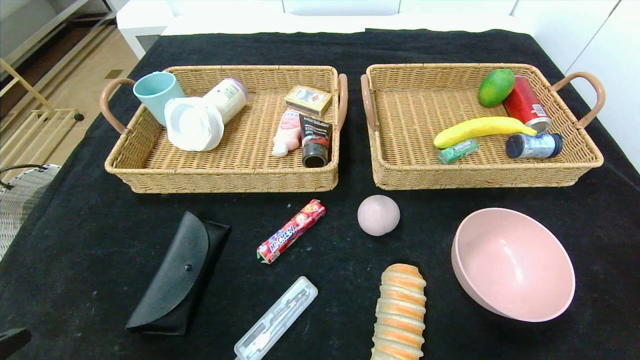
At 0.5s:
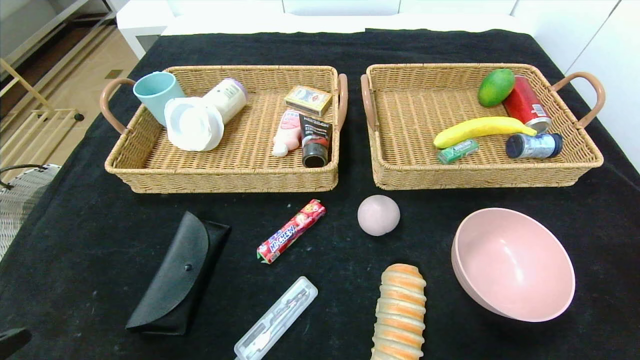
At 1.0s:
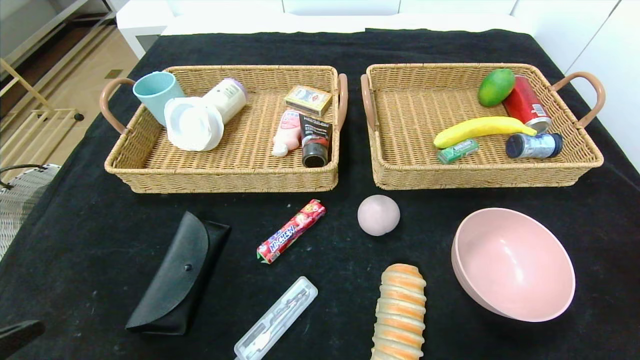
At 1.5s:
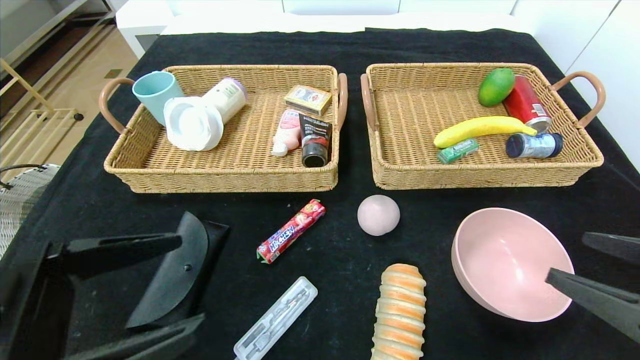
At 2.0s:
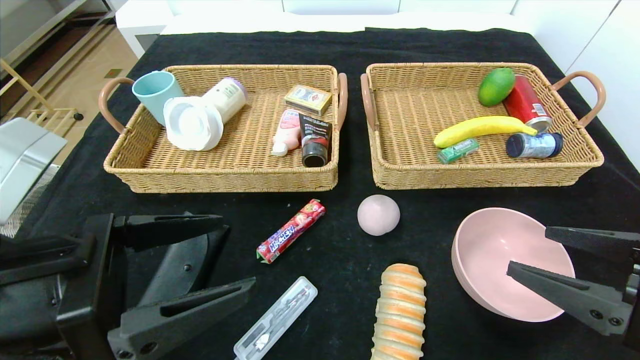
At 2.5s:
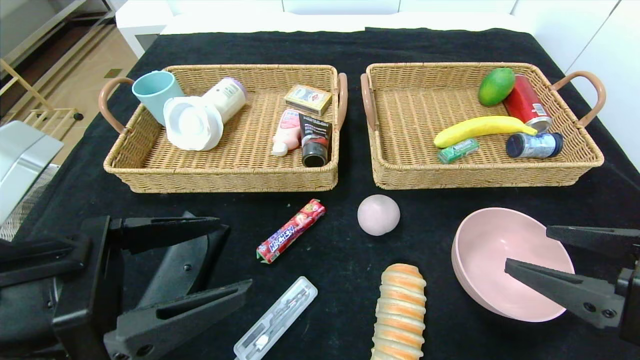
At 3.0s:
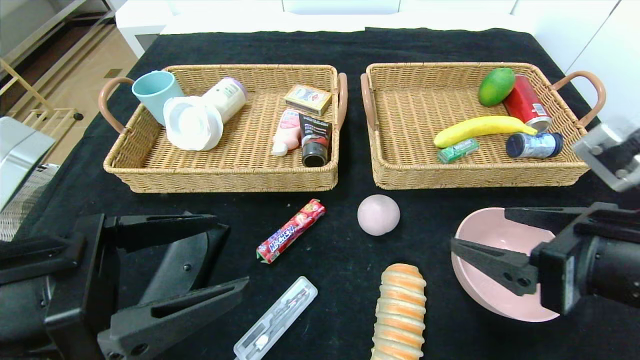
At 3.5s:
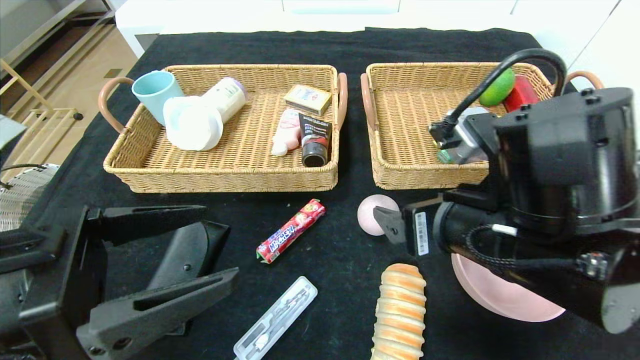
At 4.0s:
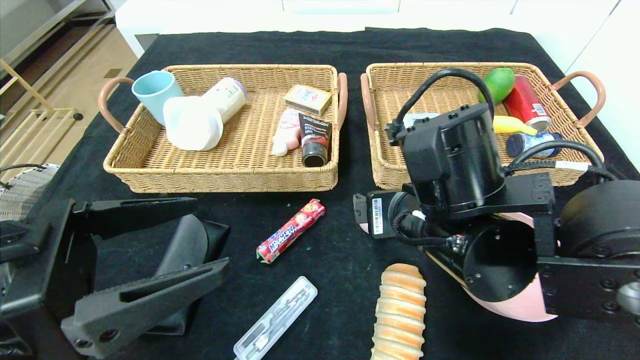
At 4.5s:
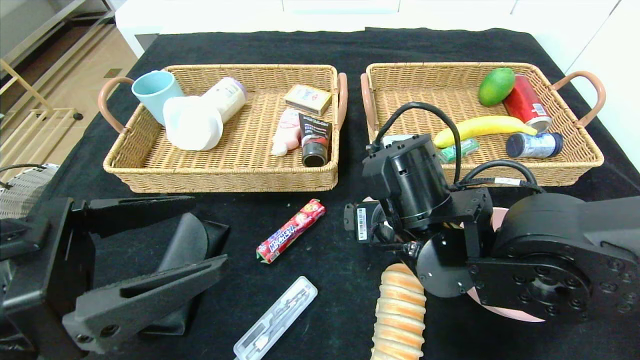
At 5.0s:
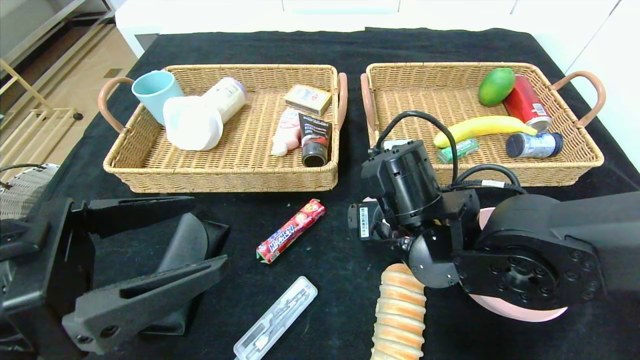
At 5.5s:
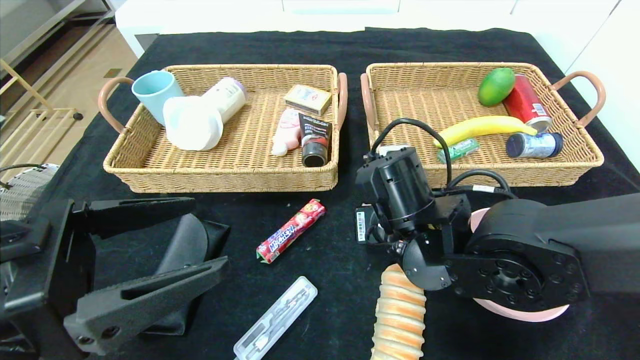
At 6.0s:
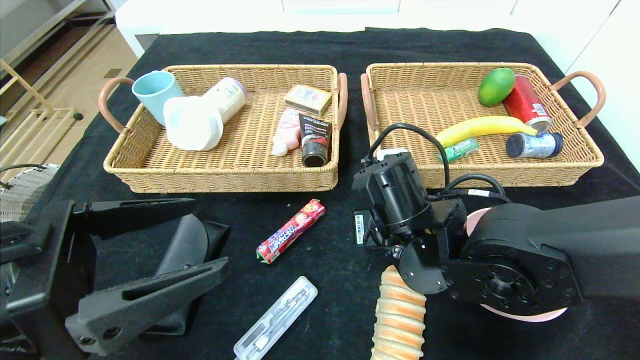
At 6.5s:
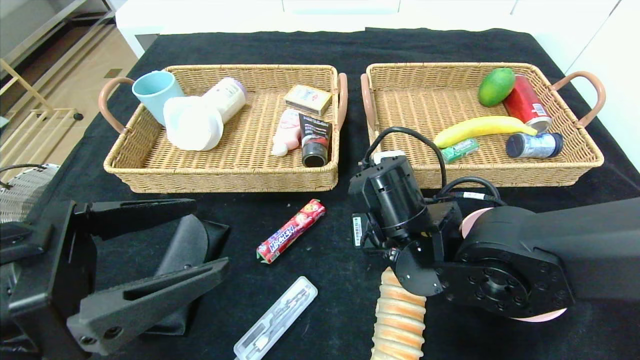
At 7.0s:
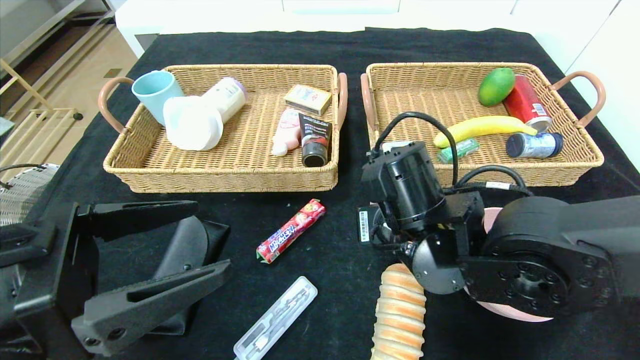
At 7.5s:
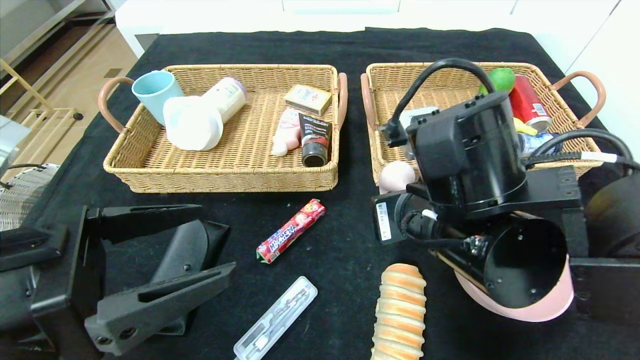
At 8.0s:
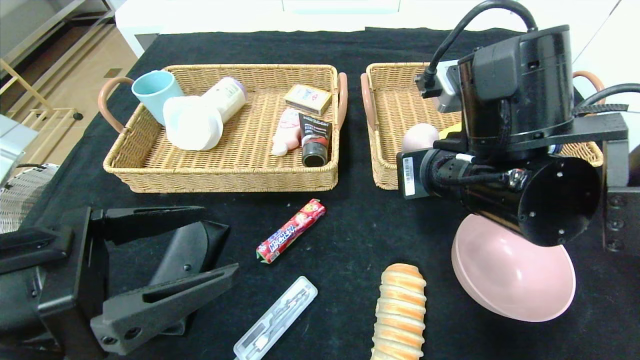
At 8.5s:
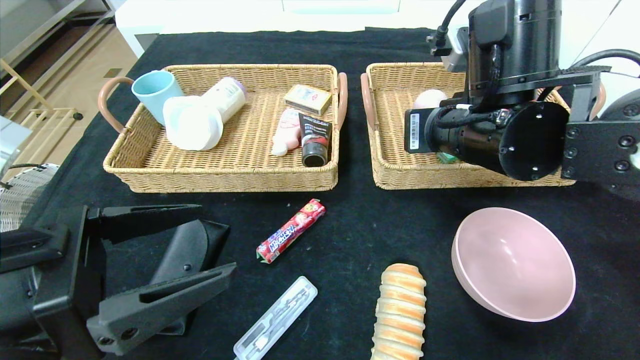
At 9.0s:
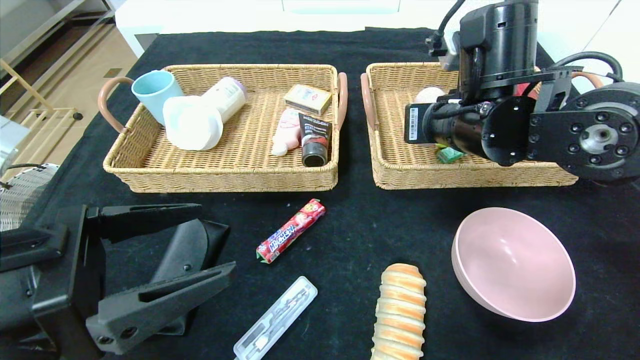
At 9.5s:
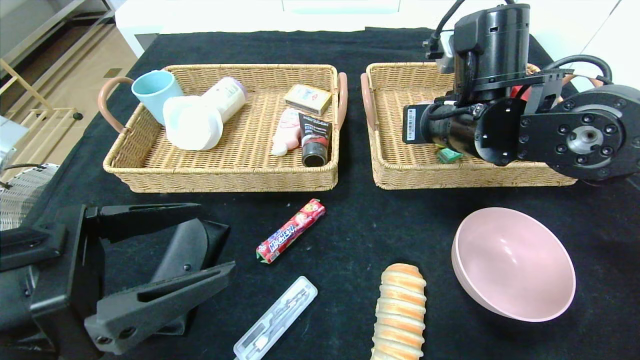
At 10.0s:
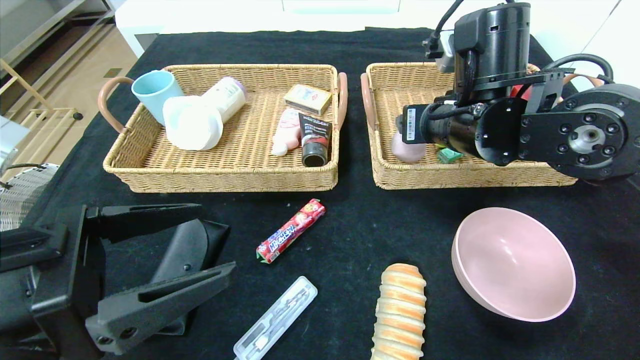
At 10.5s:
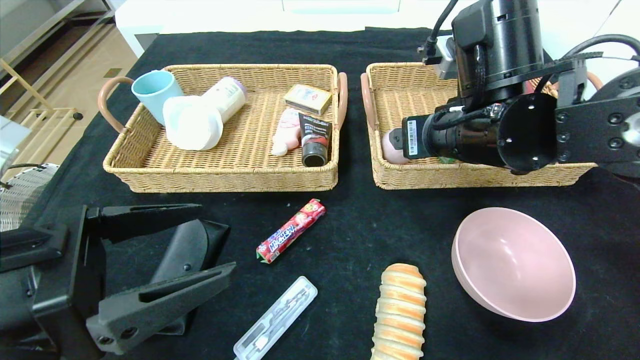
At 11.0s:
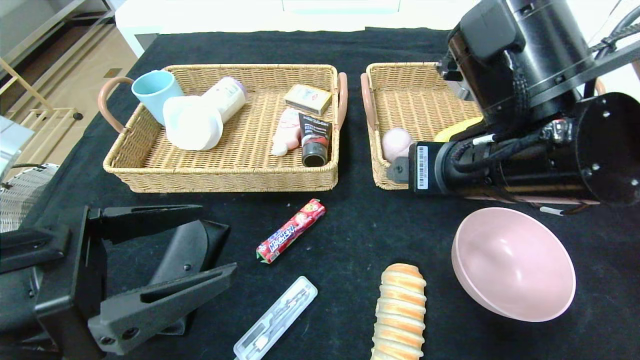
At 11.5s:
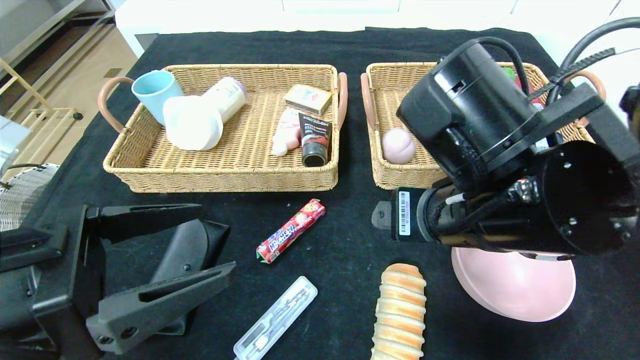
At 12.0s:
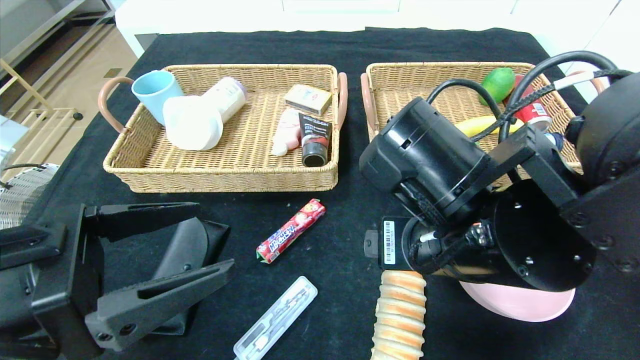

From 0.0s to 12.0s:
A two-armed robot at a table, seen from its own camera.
Step, from 0.0s to 10.0s: Grasp the peach and put it in the right basket.
From 0.0s to 2.0s: The right gripper goes roughly 25 cm upward, forward and to the left. Meanwhile the left gripper shifts about 25 cm upward, forward and to the right.
From 2.0s to 4.0s: The right gripper moves to the left and forward, some 20 cm.
From 4.0s to 6.0s: The right gripper shifts some 5 cm downward, and closes up.
From 6.0s to 8.0s: The right gripper shifts about 10 cm upward.
From 8.0s to 10.0s: The right gripper goes roughly 10 cm forward, and opens.
From 10.0s to 12.0s: The right gripper travels backward by some 10 cm.

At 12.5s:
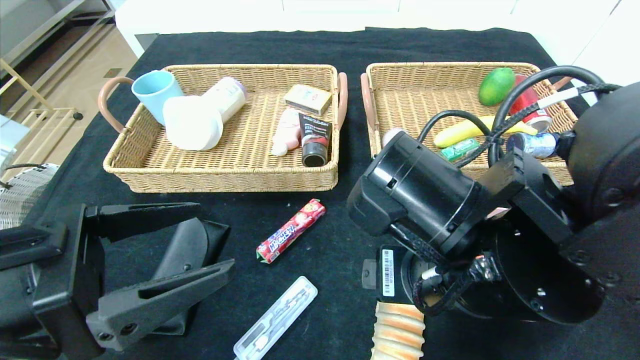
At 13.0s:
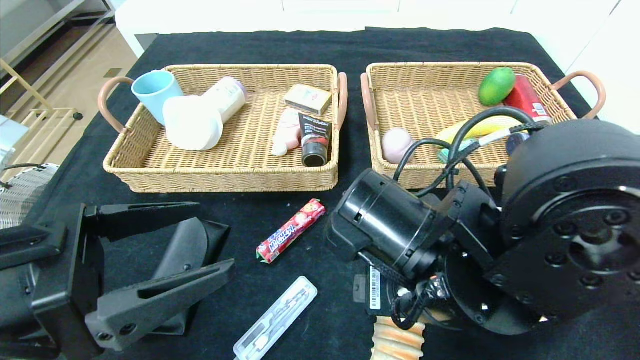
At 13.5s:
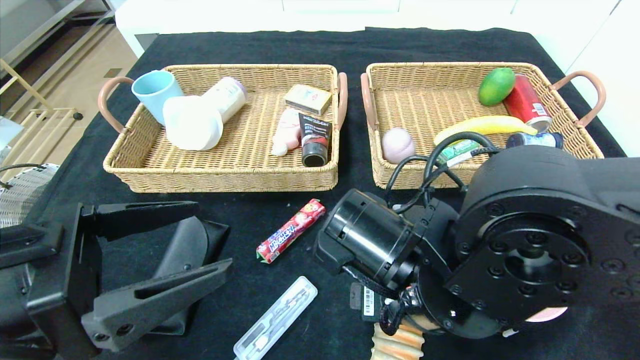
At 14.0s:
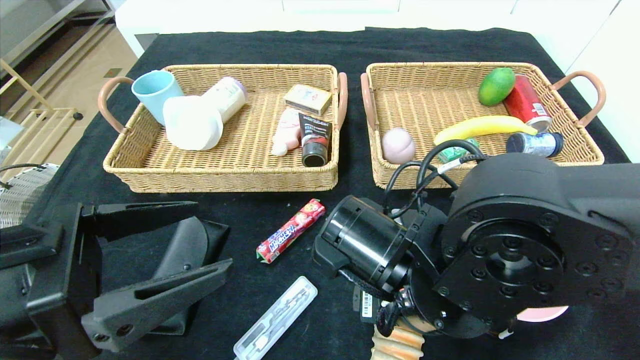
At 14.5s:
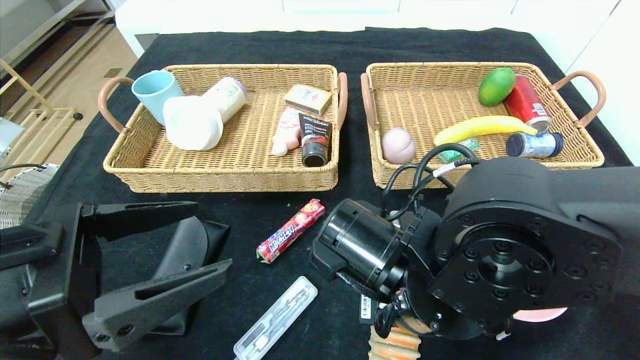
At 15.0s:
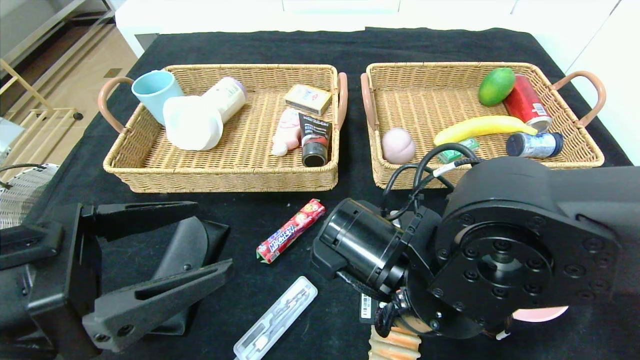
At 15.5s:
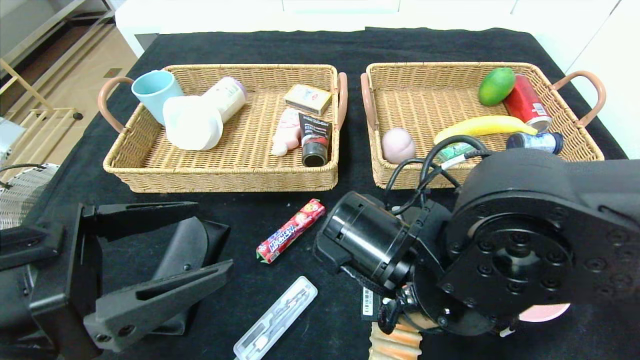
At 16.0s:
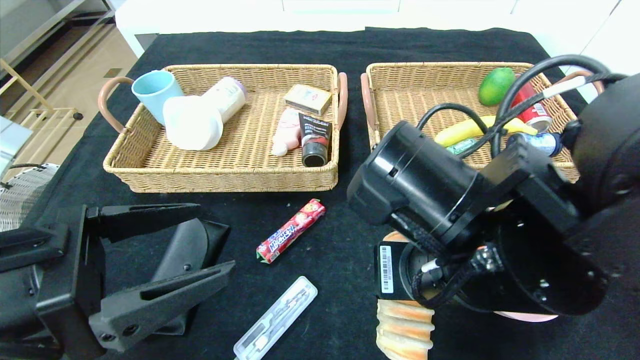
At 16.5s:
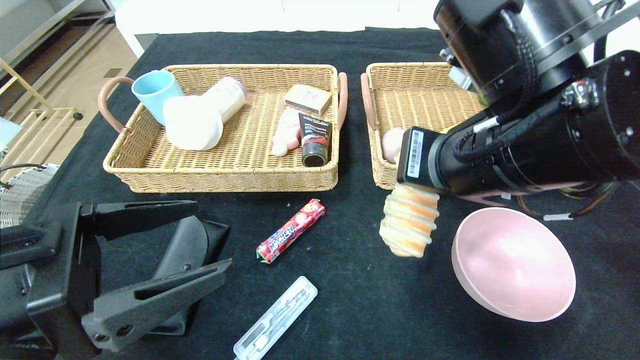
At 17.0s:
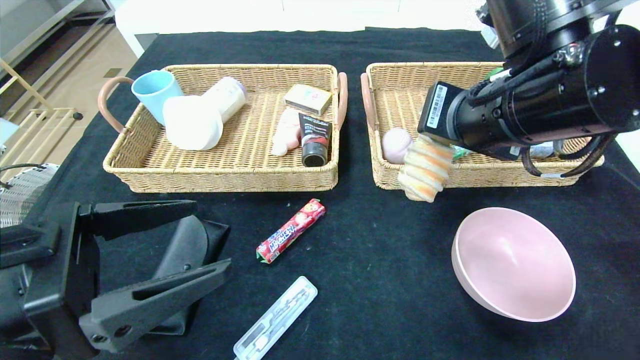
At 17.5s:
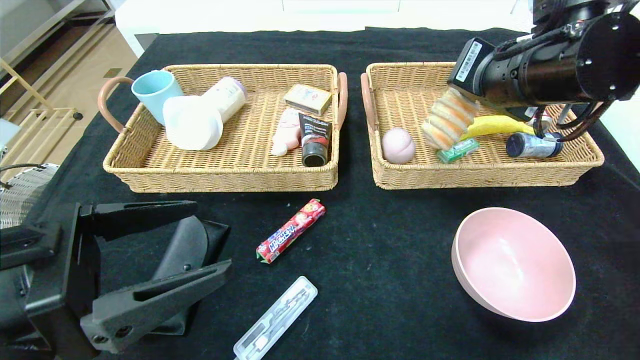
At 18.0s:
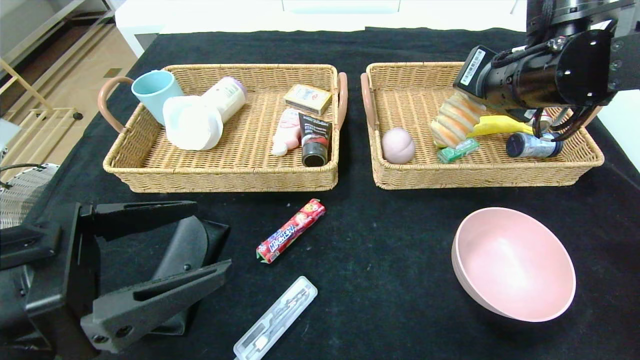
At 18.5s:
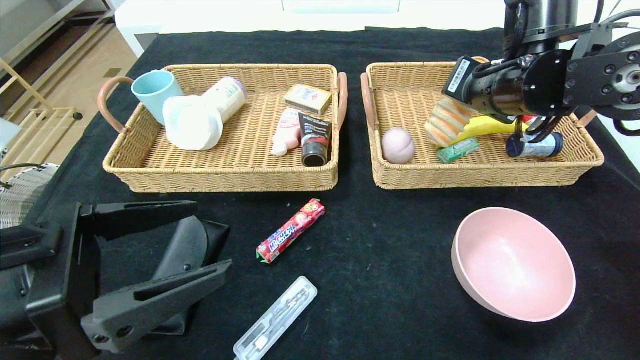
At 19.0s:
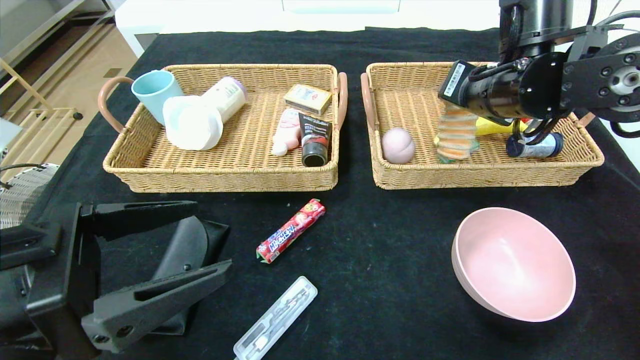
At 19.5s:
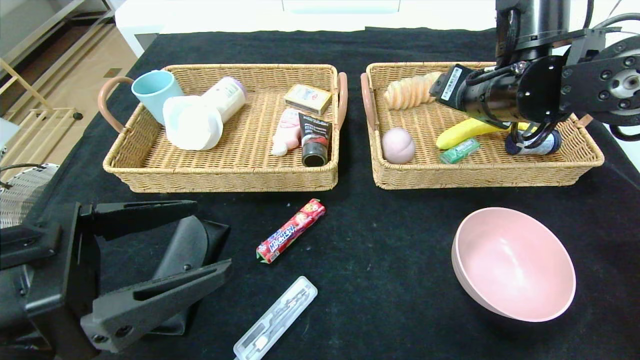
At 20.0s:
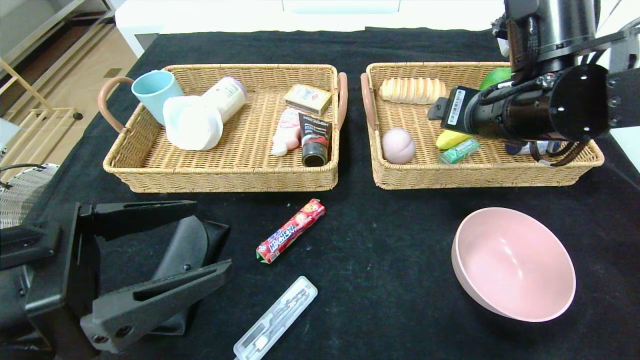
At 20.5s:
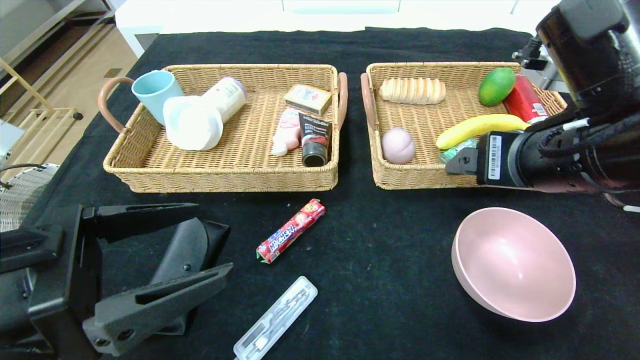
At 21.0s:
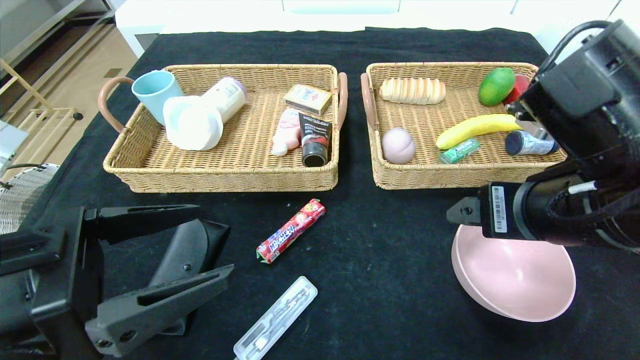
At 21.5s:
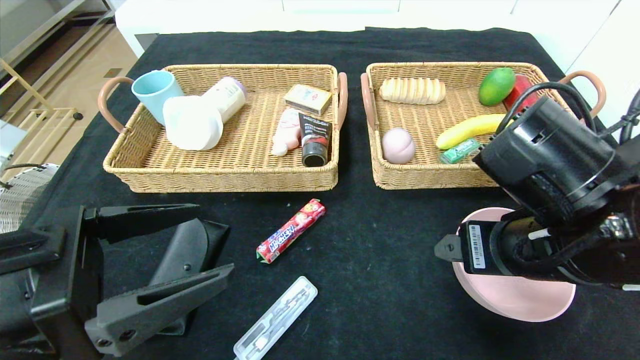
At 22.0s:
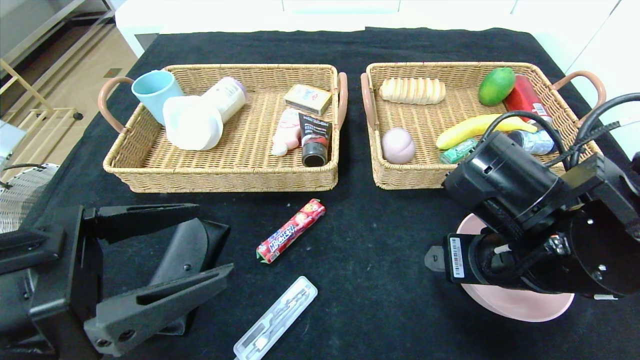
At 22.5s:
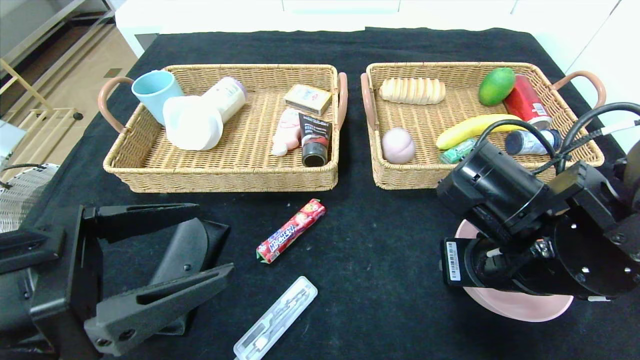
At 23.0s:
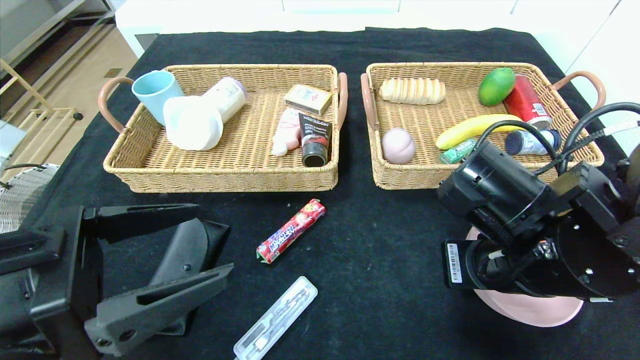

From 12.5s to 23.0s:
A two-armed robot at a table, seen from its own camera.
Step, from 12.5s to 19.5s: Grasp the long bread and put it in the right basket.
From 12.5s to 14.5s: The right gripper heads downward, covering some 5 cm, and closes up.
From 14.5s to 16.5s: The right gripper travels upward by roughly 15 cm.
From 16.5s to 19.0s: The right gripper travels forward and to the right by some 15 cm, and opens its fingers.
From 19.0s to 21.0s: The right gripper heads backward, covering about 15 cm.
From 21.0s to 23.0s: The right gripper goes some 5 cm downward, and closes its fingers.
